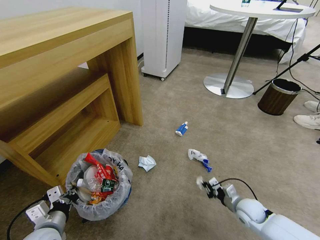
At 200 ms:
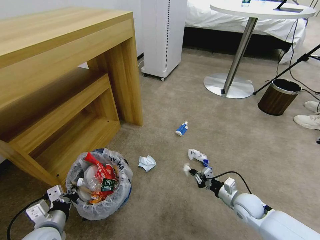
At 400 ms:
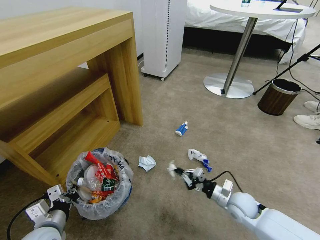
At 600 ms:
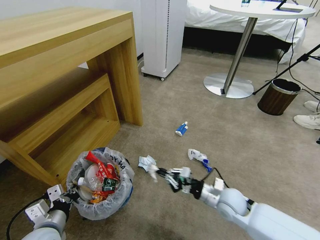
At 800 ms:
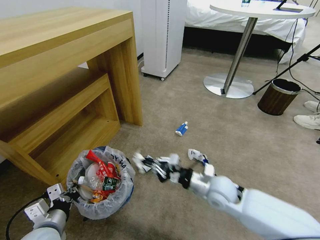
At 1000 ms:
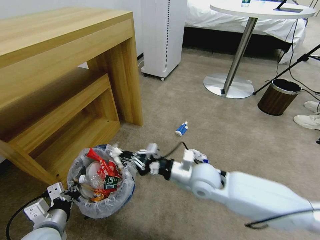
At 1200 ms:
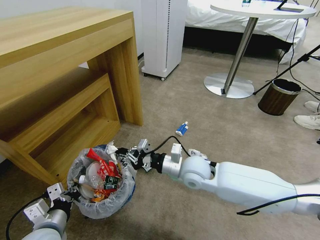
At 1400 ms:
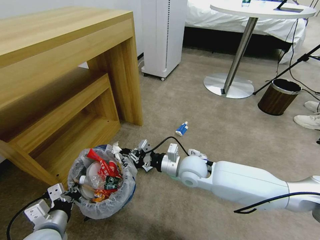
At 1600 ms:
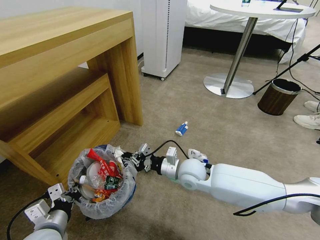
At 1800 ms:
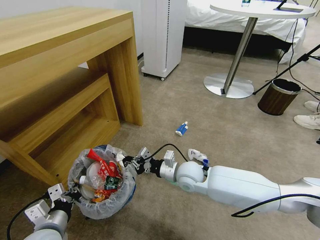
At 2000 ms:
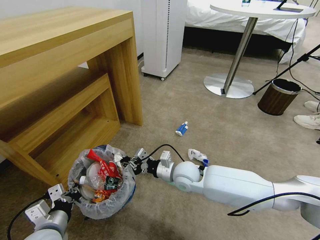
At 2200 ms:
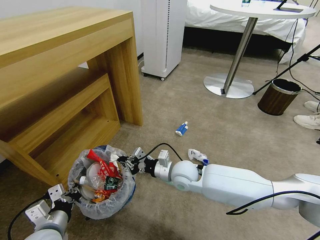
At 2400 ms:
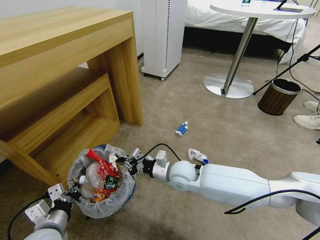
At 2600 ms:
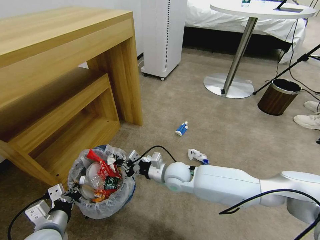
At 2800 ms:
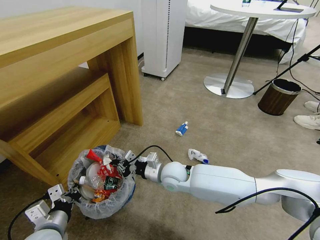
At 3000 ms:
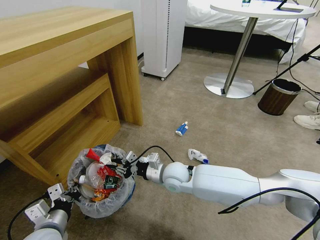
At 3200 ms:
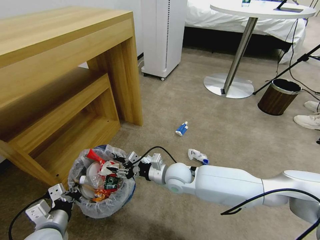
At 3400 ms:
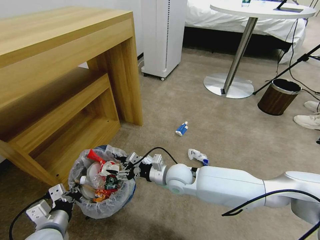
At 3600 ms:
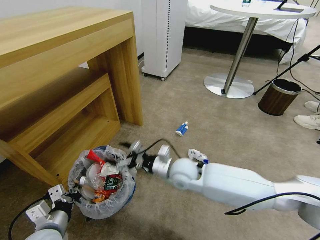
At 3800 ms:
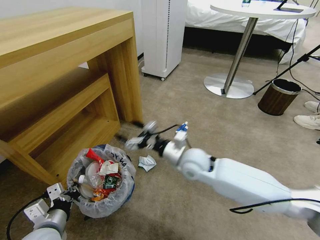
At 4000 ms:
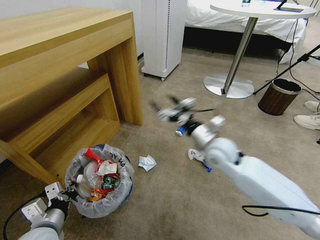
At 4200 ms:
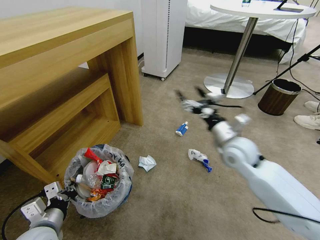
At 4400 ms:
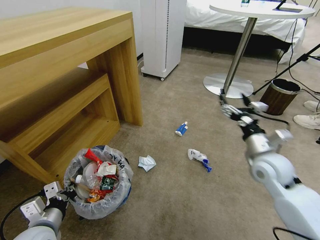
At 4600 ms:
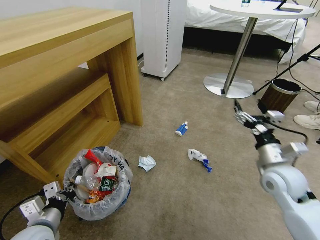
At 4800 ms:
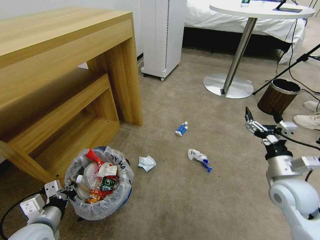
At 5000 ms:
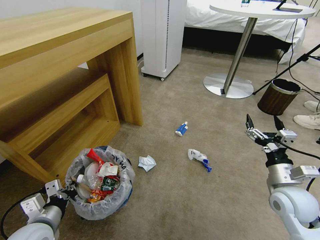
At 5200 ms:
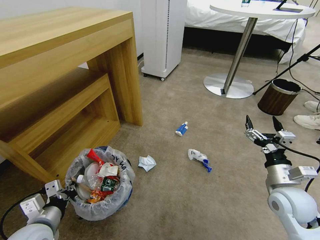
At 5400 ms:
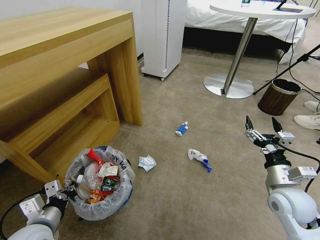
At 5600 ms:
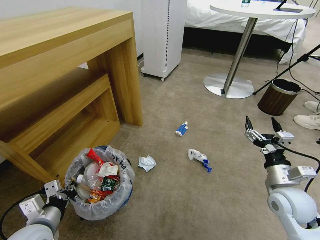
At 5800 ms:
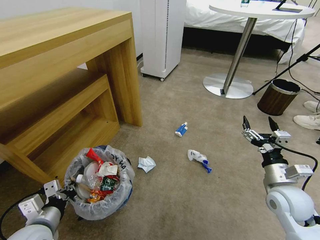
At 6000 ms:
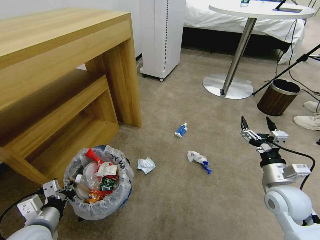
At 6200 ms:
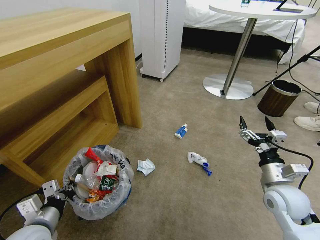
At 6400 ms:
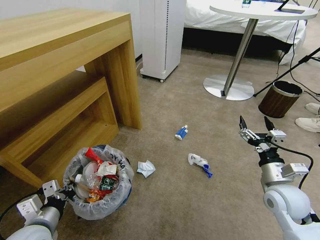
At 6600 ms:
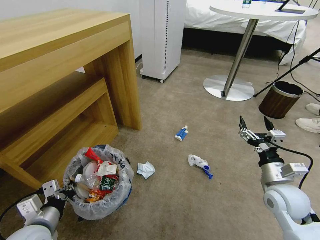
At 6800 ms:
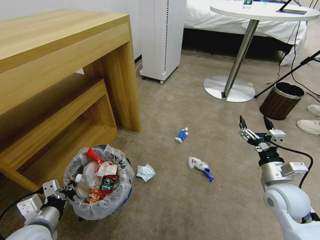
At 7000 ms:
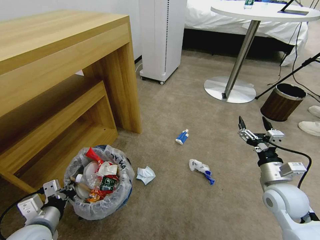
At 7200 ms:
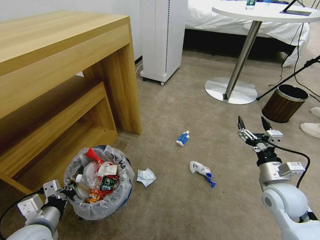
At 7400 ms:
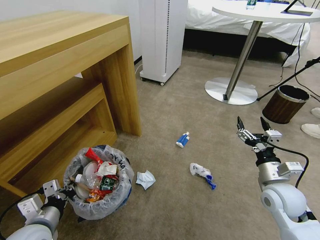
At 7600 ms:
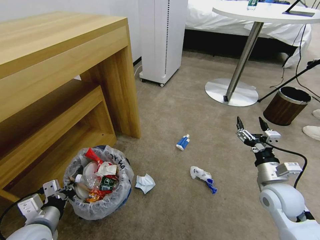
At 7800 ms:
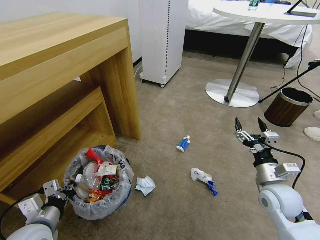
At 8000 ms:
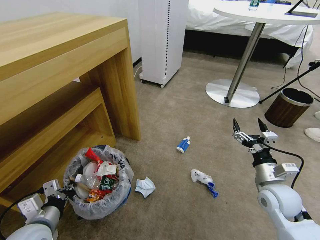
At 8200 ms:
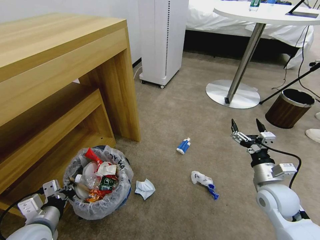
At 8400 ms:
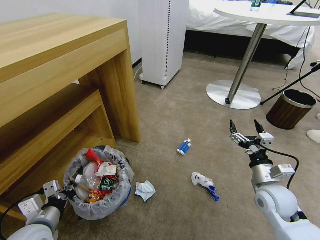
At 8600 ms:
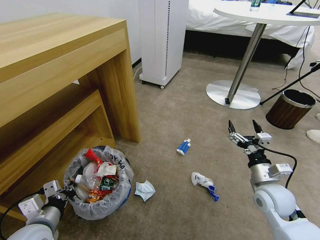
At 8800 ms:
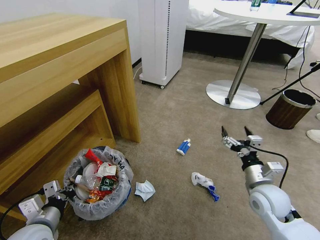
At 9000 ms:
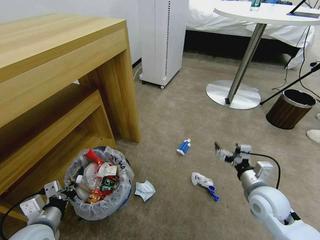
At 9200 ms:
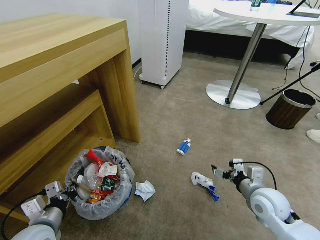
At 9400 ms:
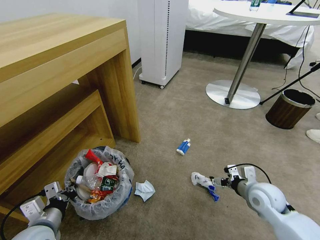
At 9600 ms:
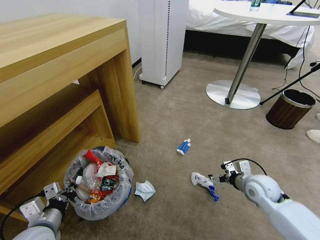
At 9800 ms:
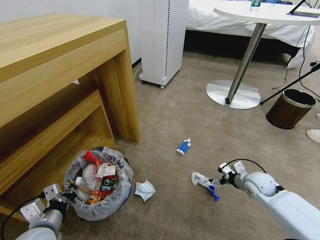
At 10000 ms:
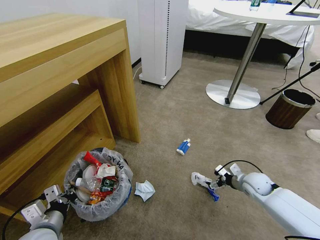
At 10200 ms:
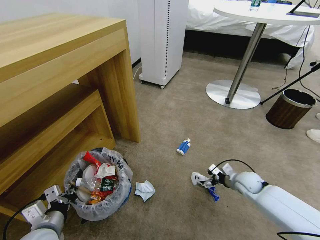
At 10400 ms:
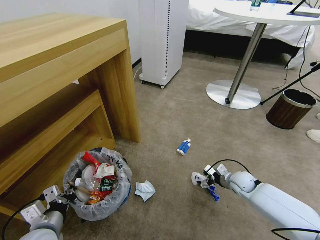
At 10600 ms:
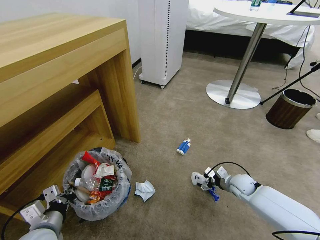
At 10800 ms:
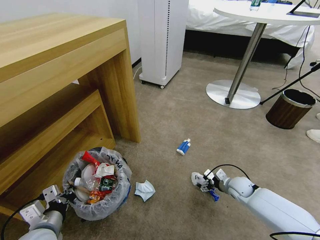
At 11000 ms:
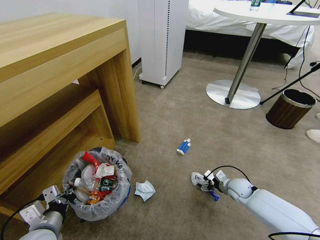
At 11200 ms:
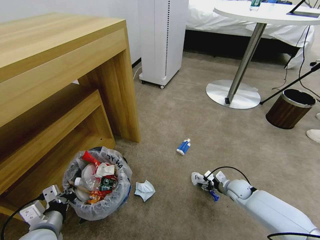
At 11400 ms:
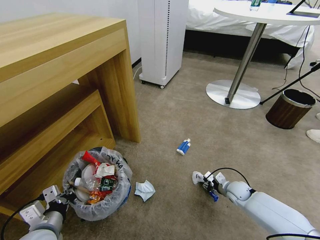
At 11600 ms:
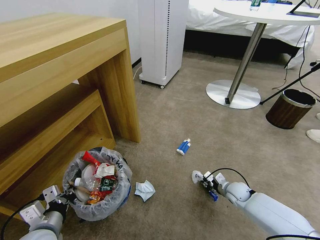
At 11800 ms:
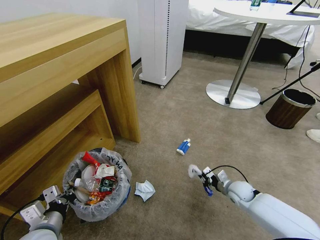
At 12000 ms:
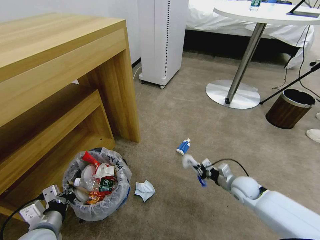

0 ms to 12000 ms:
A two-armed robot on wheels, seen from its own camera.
Task of the whole recording: Pick up the trash bin and place the garbage on the floor into it.
0 ms to 1600 ms: The right gripper travels to the left and upward by roughly 30 cm.
1600 ms to 3000 ms: The right gripper heads to the left, covering roughly 5 cm.
3000 ms to 4400 ms: The right gripper shifts approximately 30 cm to the right and upward, and opens up.
4400 ms to 6000 ms: The right gripper shifts approximately 10 cm backward and downward.
9000 ms to 10400 ms: The right gripper shifts about 20 cm downward and forward.
10400 ms to 12000 ms: The right gripper shifts by roughly 5 cm, and closes up.

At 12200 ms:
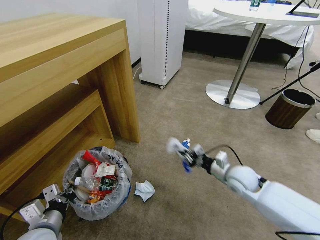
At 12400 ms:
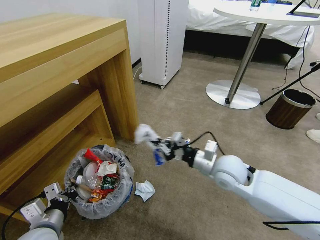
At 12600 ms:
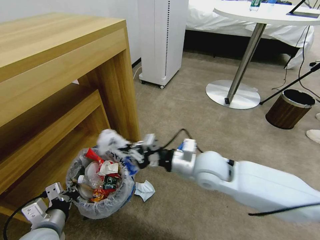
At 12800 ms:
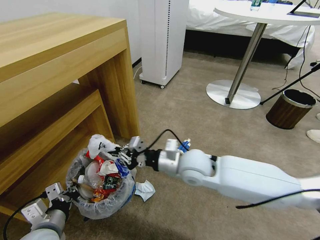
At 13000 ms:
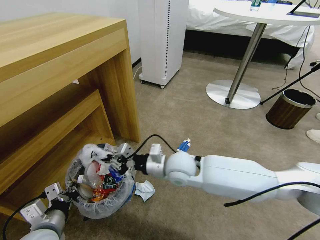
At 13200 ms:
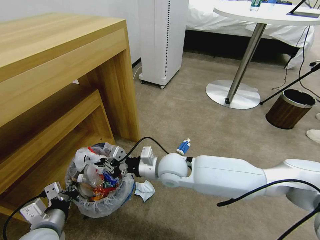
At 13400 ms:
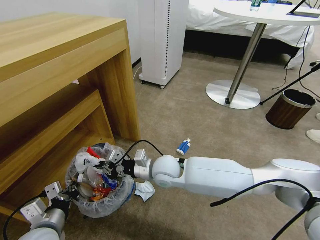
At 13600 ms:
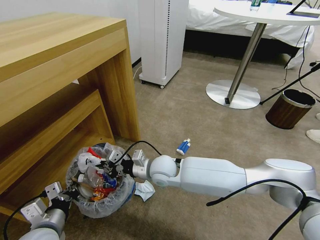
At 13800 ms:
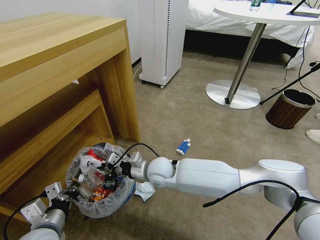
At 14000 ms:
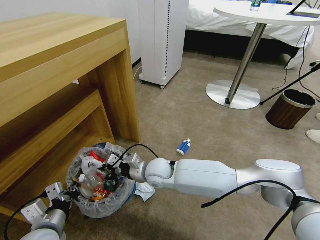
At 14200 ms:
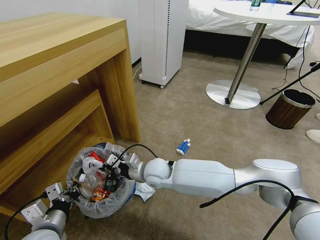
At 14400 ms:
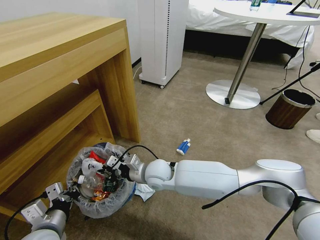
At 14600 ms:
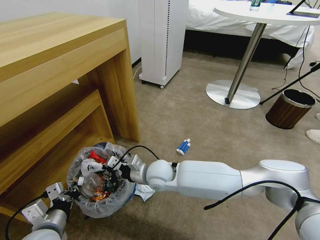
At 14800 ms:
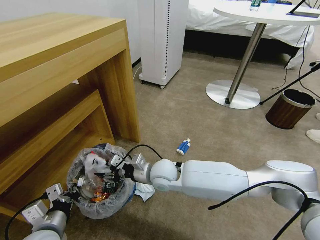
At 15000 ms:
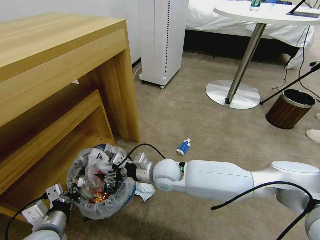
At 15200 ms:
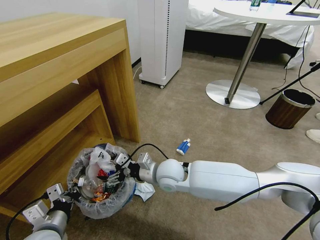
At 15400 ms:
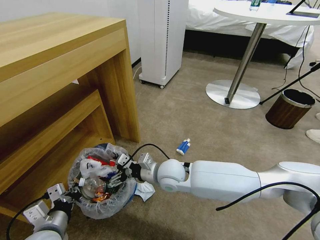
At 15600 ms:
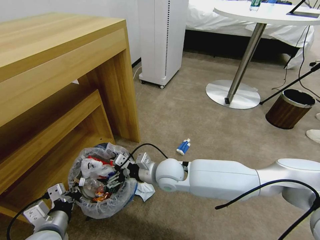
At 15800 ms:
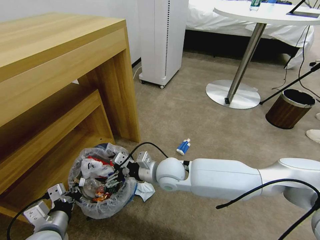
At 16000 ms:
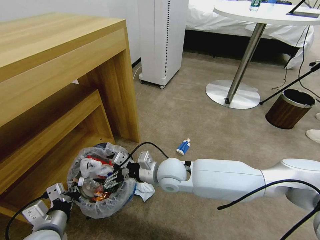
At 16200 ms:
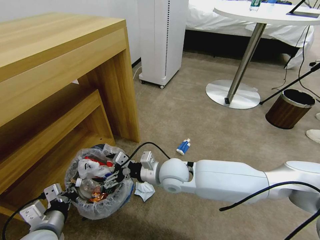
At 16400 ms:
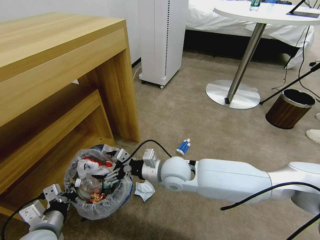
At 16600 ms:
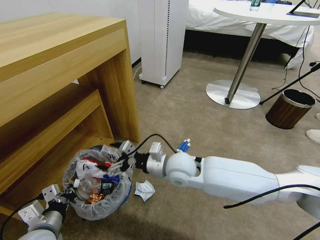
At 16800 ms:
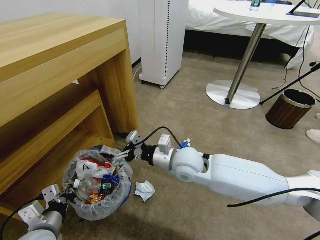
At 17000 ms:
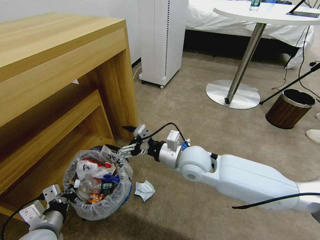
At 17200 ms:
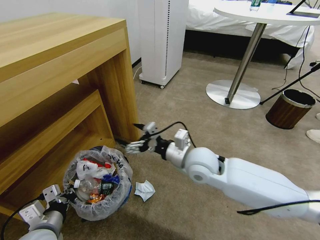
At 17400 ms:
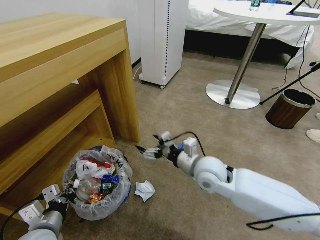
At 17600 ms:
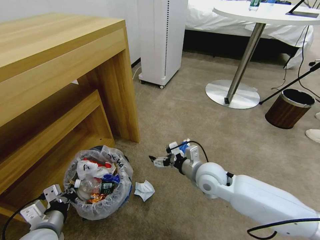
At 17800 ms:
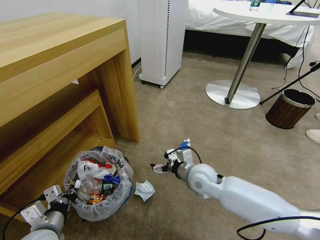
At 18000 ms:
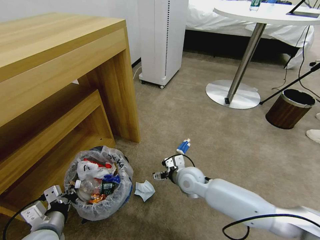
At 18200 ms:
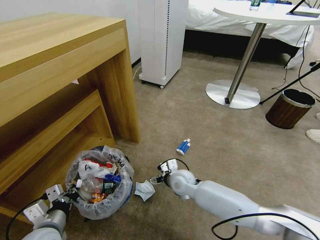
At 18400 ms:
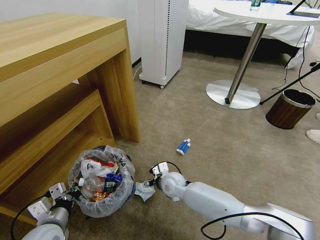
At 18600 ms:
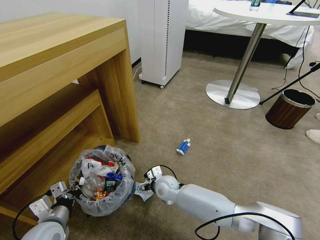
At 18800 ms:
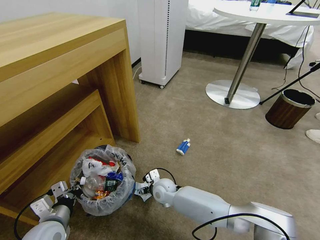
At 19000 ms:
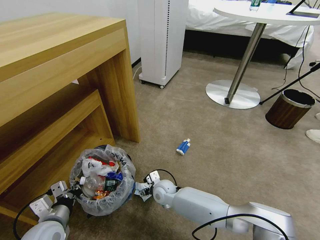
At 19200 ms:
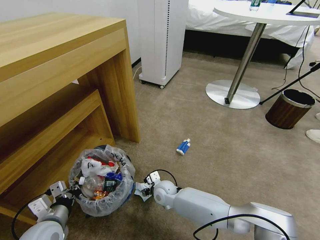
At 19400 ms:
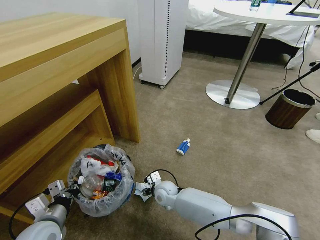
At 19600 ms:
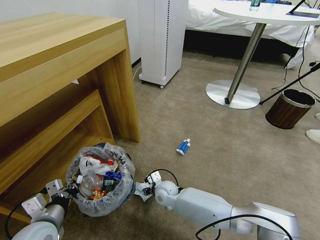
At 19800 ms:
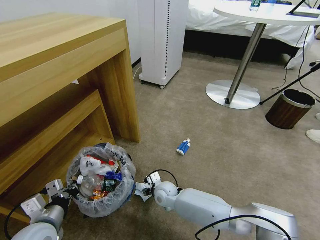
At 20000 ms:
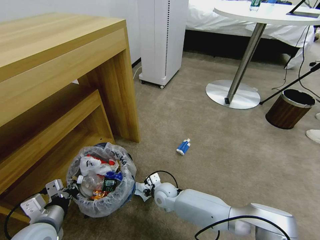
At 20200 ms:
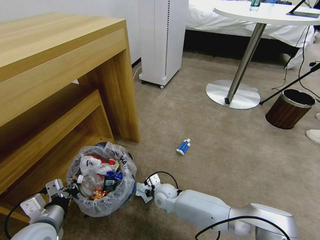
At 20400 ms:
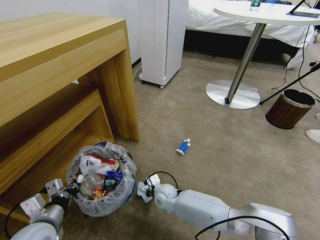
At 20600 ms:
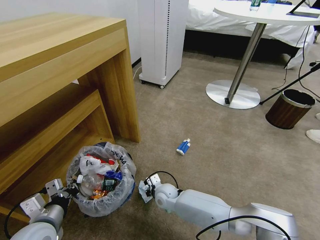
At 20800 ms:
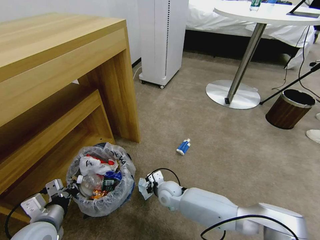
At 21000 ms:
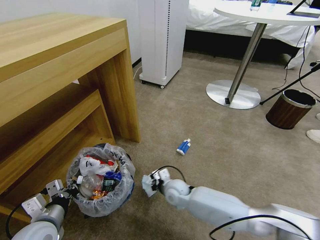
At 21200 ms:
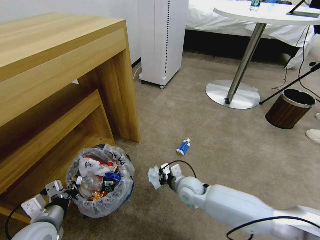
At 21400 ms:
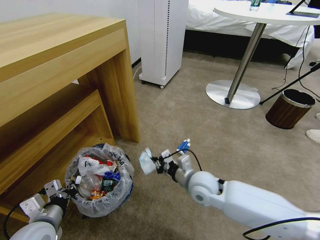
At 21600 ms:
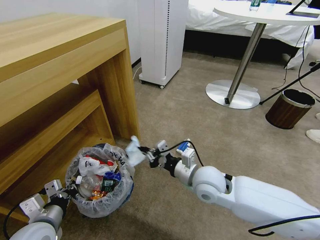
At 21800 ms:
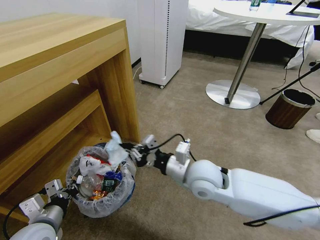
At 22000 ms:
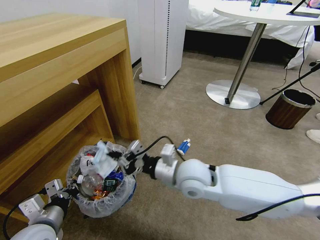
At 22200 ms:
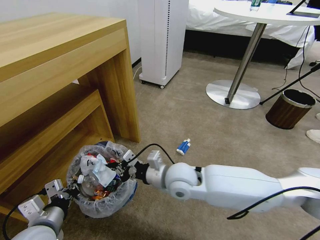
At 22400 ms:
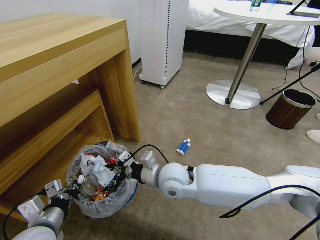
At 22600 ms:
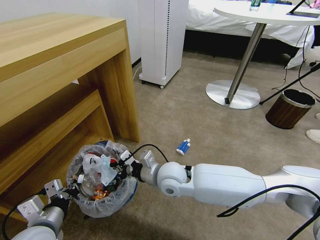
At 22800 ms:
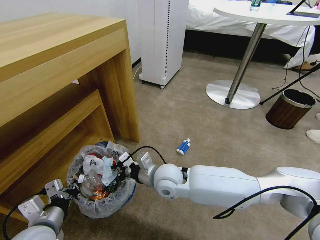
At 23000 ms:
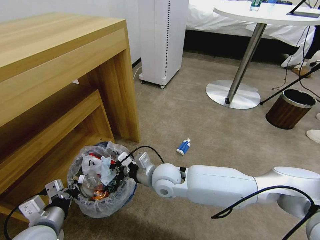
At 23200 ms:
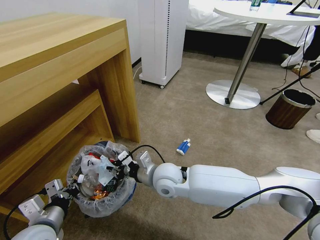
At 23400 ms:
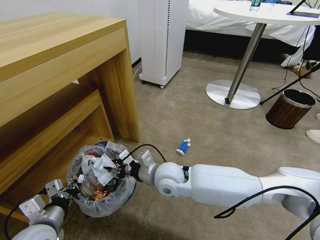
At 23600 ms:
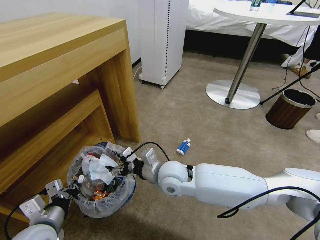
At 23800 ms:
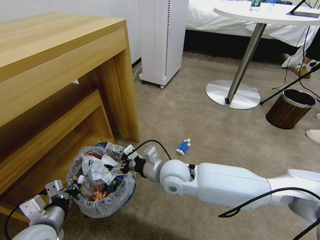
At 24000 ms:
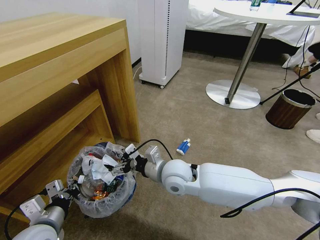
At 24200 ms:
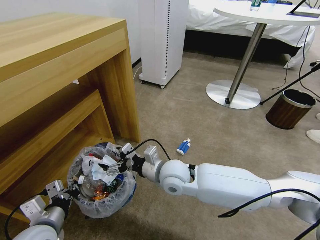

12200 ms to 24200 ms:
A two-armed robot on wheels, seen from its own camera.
Task of the whole recording: Pick up the trash bin and place the garbage on the floor into it.
12200 ms to 13800 ms: The right gripper is displaced to the left by some 25 cm.
13800 ms to 15200 ms: The right gripper opens up.
15200 ms to 16600 ms: The right gripper changes place by roughly 5 cm.
16600 ms to 18200 ms: The right gripper is displaced downward by about 15 cm.
18200 ms to 19800 ms: The right gripper travels downward and to the left by roughly 10 cm.
19800 ms to 21200 ms: The right gripper moves to the right and upward, some 10 cm, and closes.
21200 ms to 22600 ms: The right gripper shifts roughly 15 cm upward and to the left.
22600 ms to 24200 ms: The right gripper opens.
